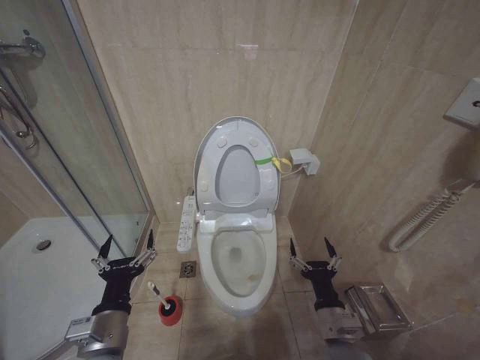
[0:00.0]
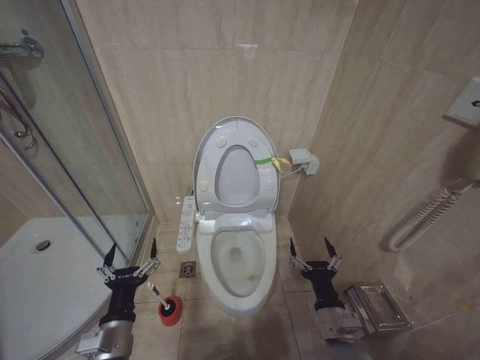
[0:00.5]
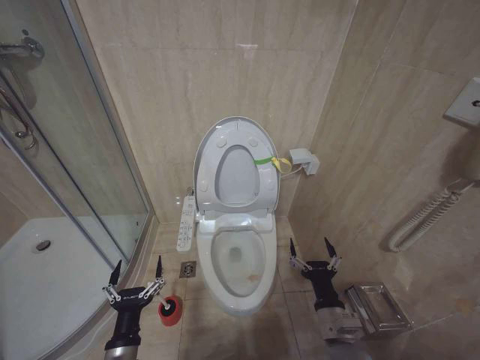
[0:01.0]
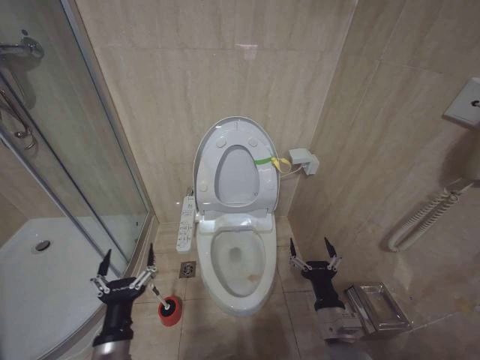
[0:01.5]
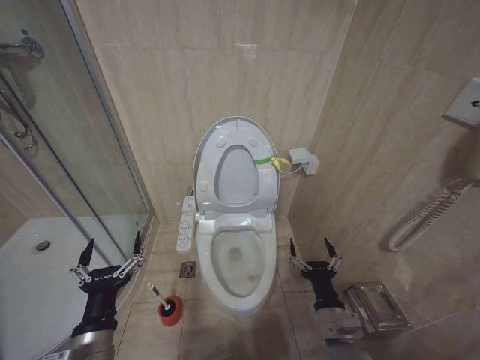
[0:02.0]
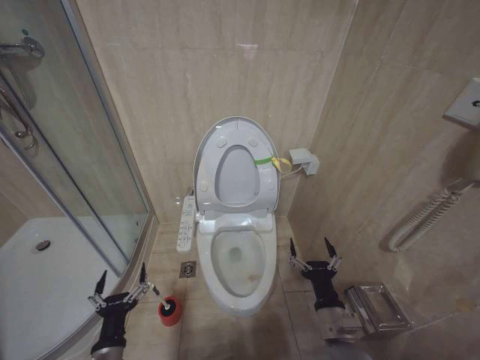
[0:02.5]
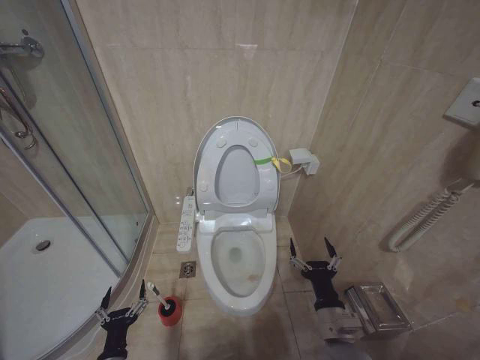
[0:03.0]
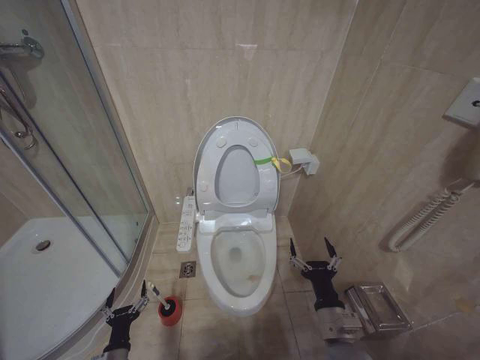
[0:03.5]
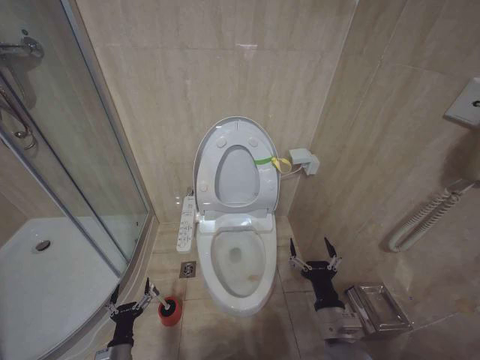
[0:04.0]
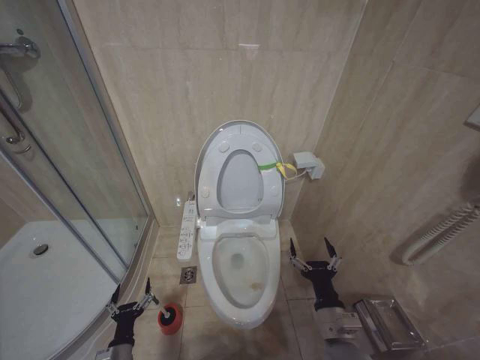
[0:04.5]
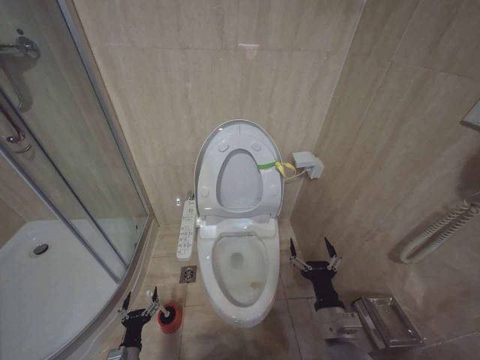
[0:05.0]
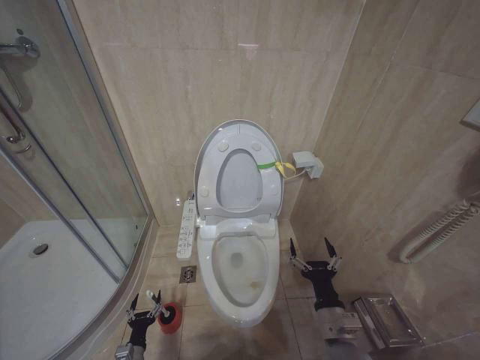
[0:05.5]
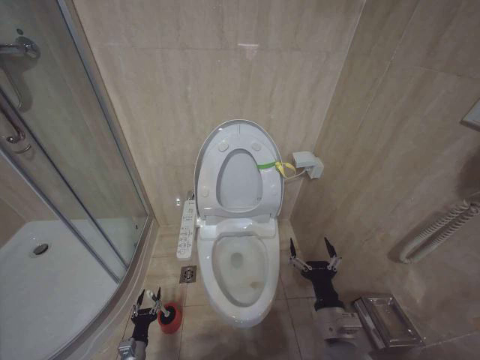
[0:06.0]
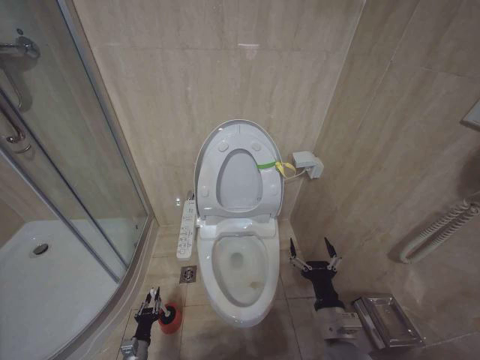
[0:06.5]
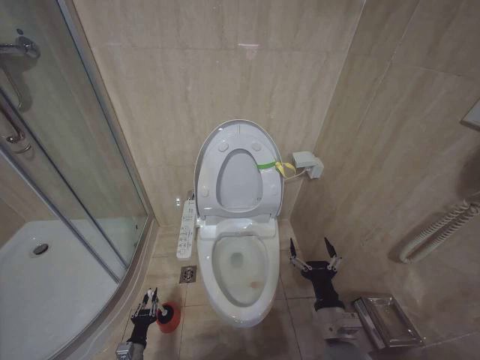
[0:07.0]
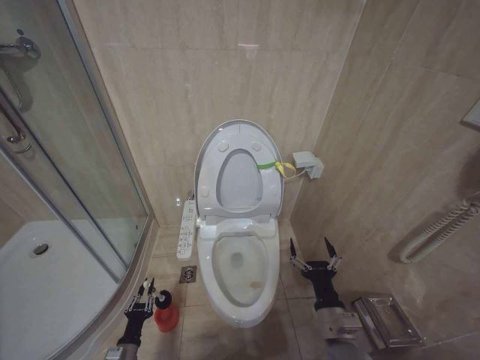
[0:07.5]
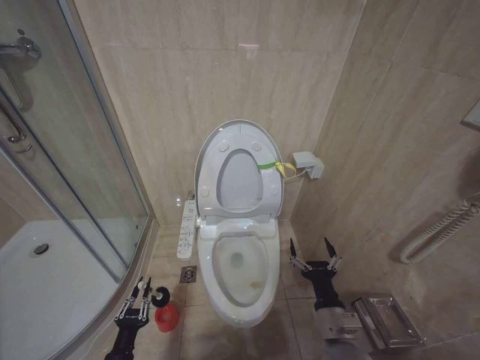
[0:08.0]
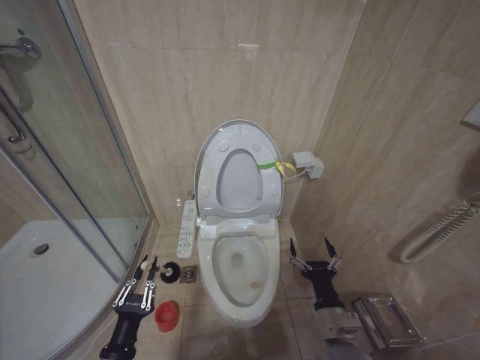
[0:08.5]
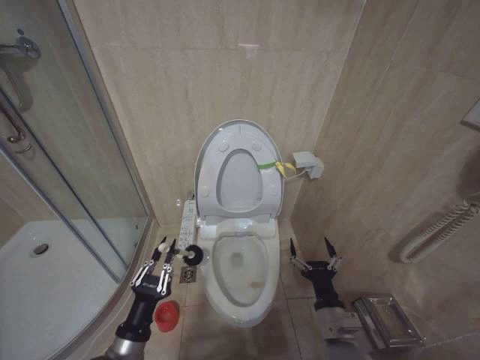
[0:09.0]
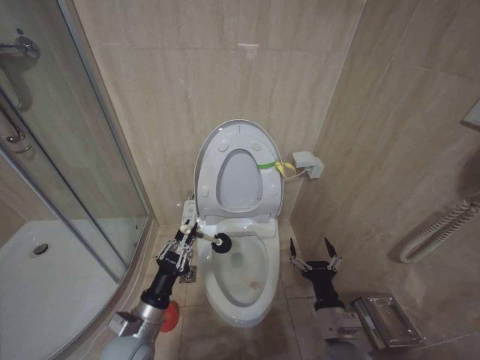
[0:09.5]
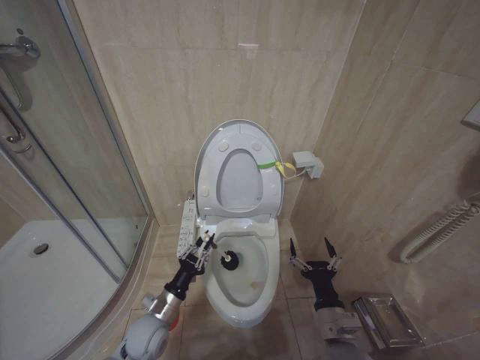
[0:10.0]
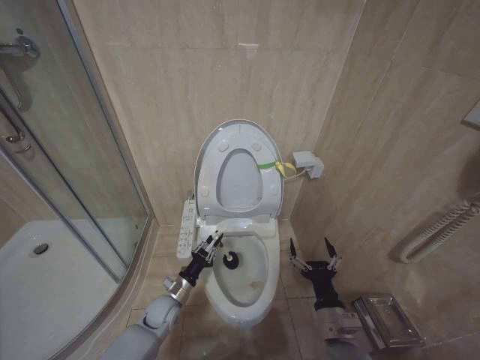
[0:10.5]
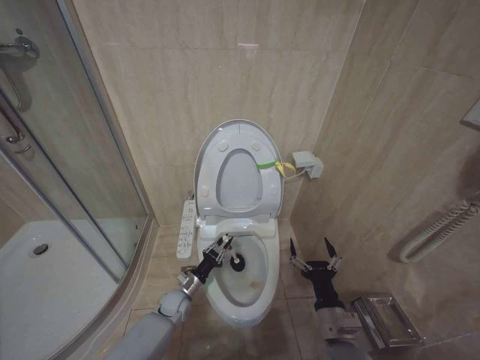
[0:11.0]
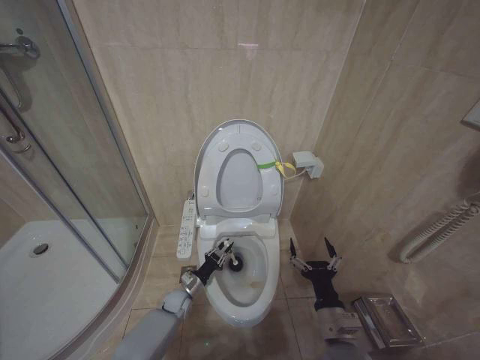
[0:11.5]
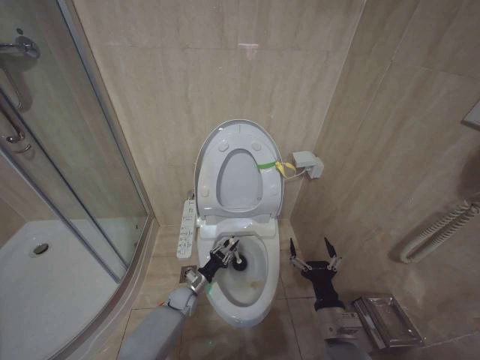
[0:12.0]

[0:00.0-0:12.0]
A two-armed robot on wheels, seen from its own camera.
Task of the whole recording: Open the toilet lid, clean the toilet bowl with a toilet brush, close the toilet lid, and flush.
0.0 to 2.0 s: The left gripper moves about 10 cm downward and comes back.
2.0 to 4.0 s: The left gripper moves downward, about 25 cm.
4.0 to 6.0 s: The left gripper goes approximately 10 cm downward.
6.0 to 8.0 s: The left gripper is displaced upward and backward by about 15 cm, and closes its fingers.
8.0 to 10.0 s: The left gripper shifts roughly 15 cm forward, upward and to the right.
10.0 to 12.0 s: The left gripper goes approximately 20 cm downward and forward.

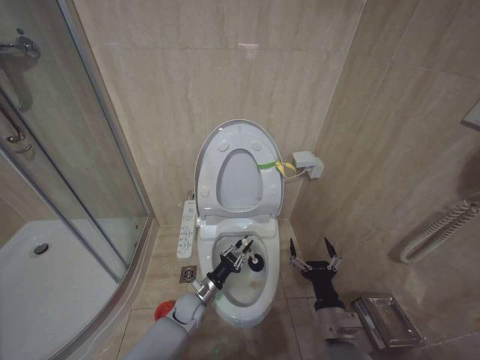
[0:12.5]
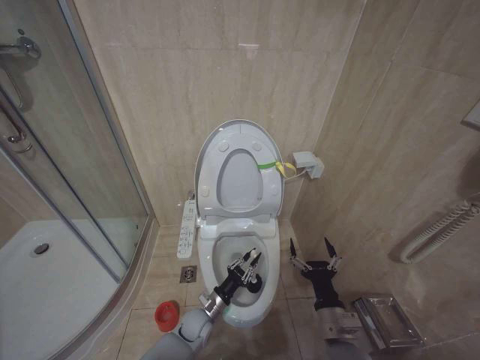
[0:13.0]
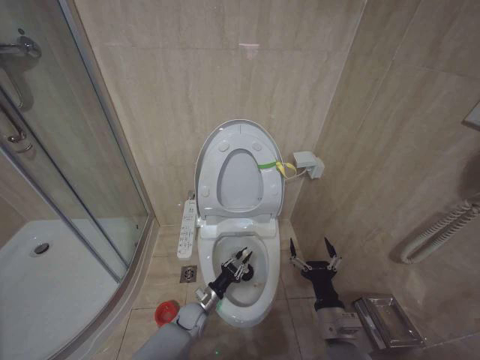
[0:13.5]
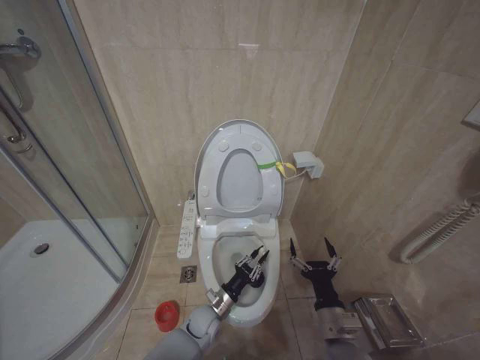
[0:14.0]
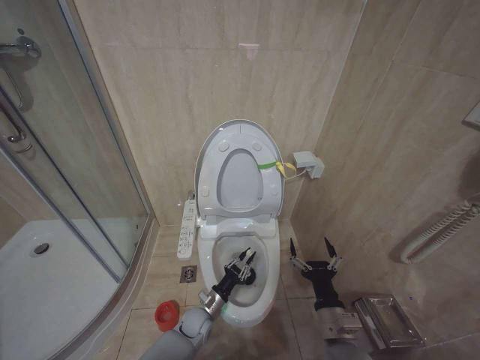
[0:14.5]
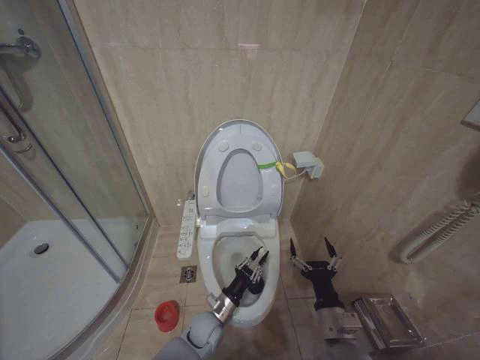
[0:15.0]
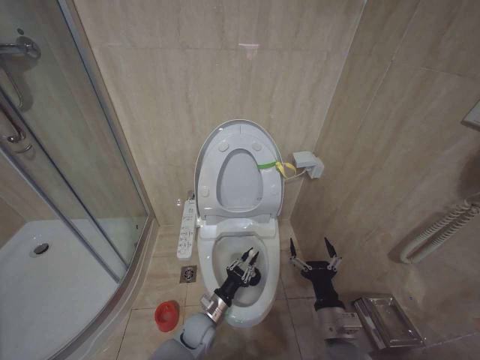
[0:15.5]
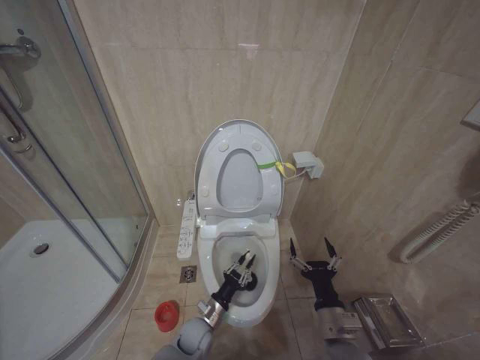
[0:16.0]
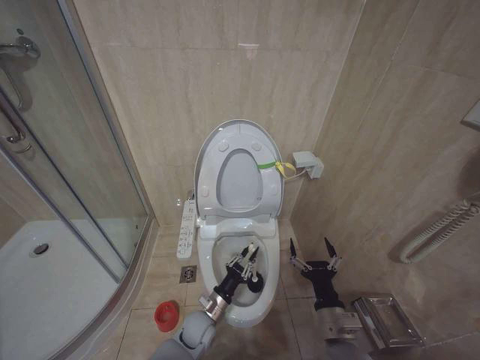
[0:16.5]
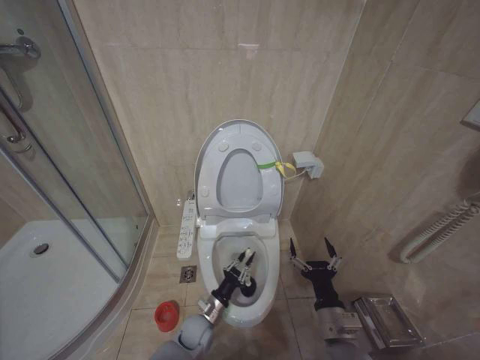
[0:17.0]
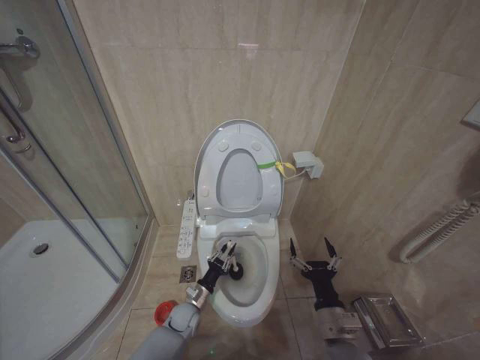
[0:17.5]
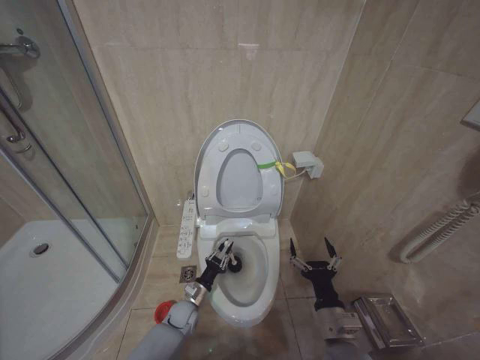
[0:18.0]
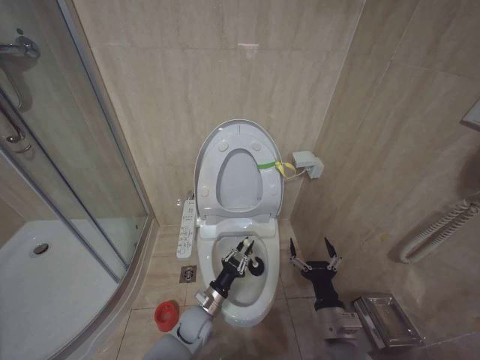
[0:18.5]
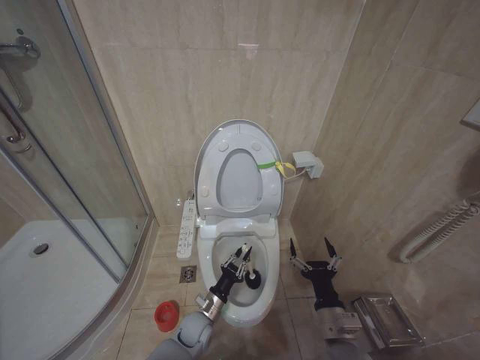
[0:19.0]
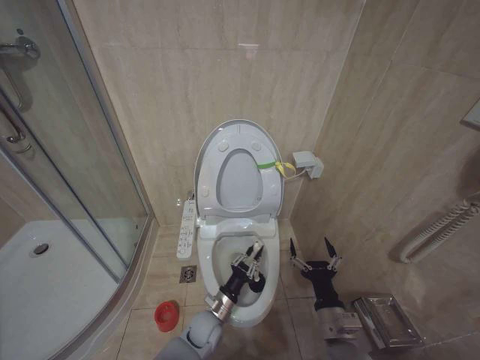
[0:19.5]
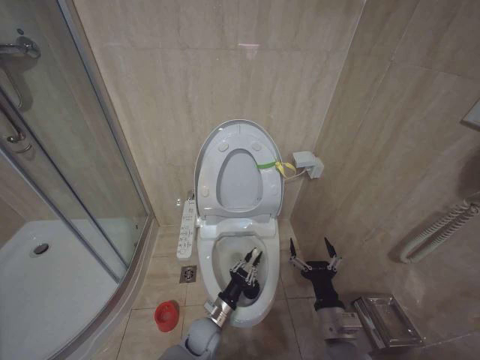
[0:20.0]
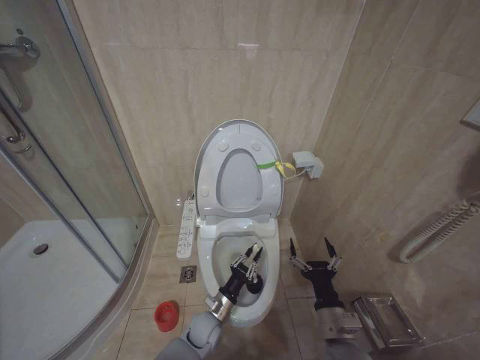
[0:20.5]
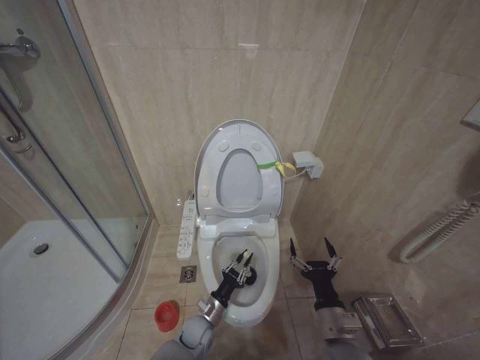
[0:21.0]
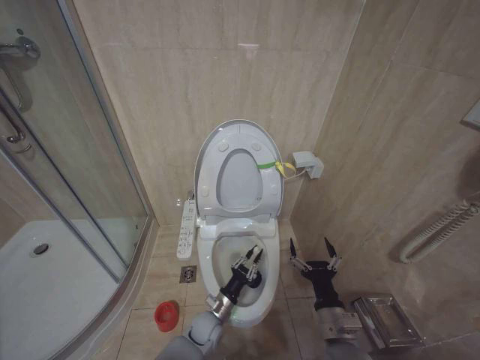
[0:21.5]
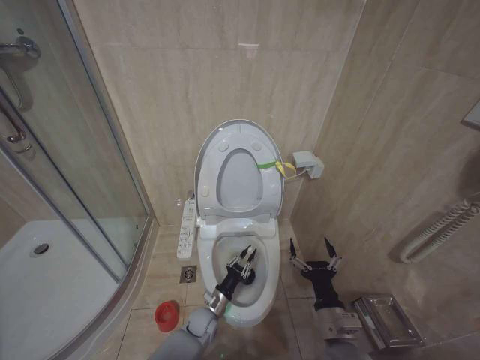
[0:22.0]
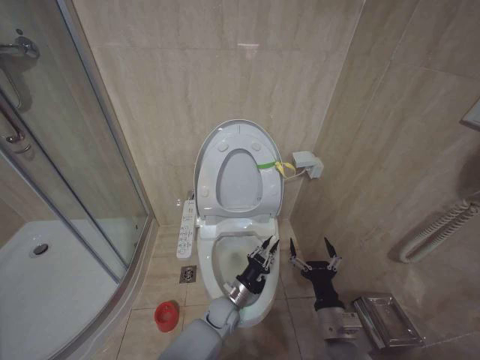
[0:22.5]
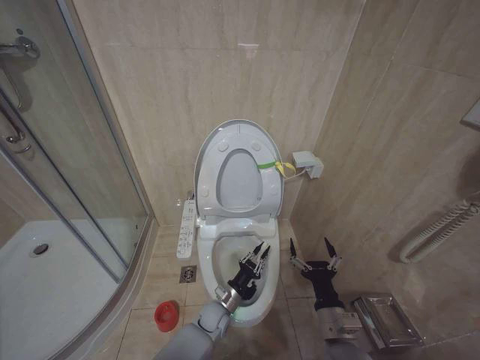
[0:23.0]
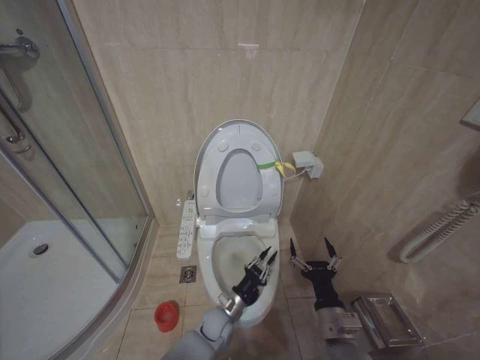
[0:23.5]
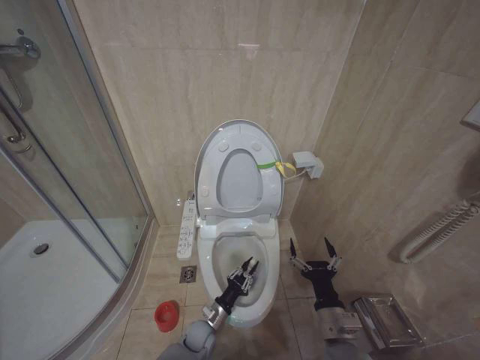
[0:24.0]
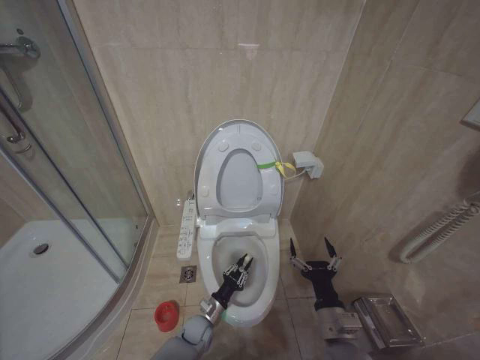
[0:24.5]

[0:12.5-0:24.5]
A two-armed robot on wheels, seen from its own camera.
Task of the whole recording: Open the toilet lid, clean the toilet bowl with a toilet brush, close the toilet lid, and flush.
12.5 to 14.5 s: The left gripper ends up about 5 cm from where it was.
18.5 to 20.5 s: There are only small adjustments of the grippers.
20.5 to 22.5 s: The left gripper heads to the right, covering about 5 cm.
22.5 to 24.5 s: The left gripper moves to the left and downward, about 10 cm.

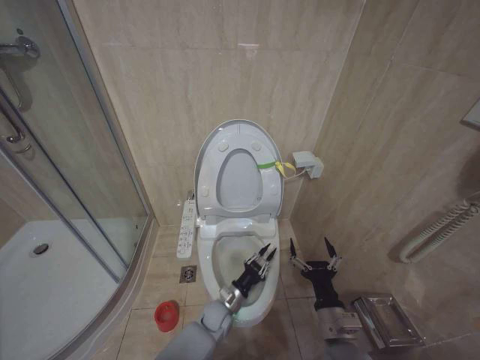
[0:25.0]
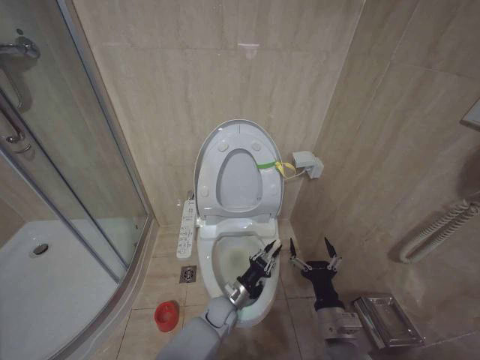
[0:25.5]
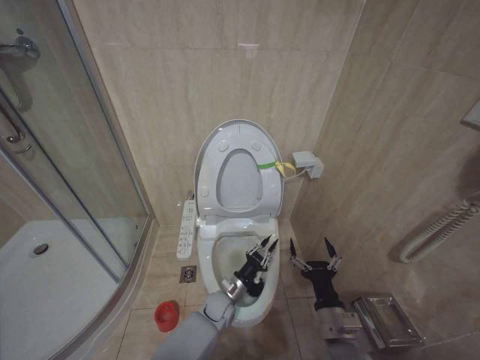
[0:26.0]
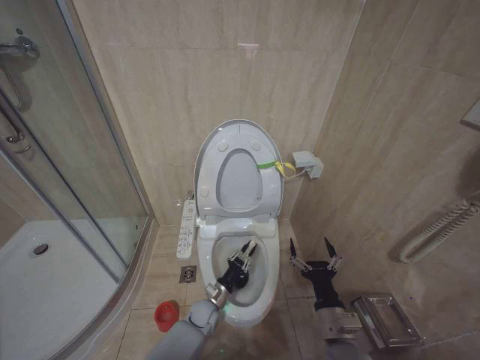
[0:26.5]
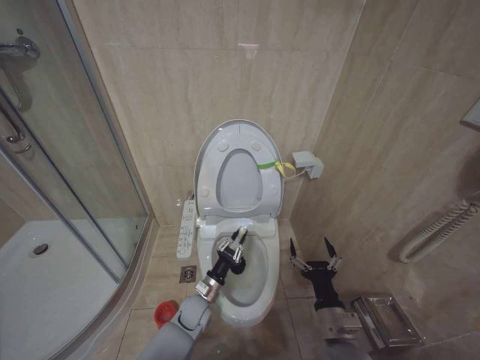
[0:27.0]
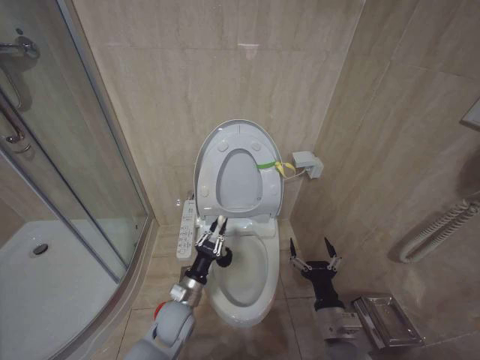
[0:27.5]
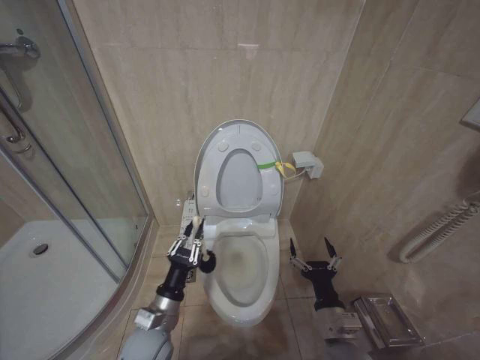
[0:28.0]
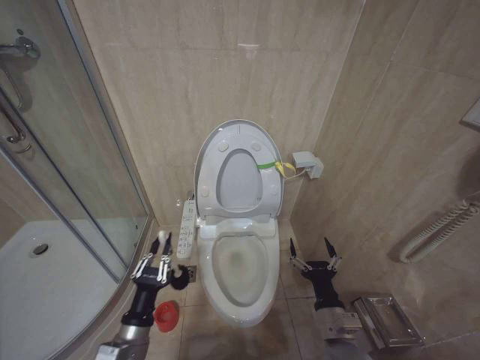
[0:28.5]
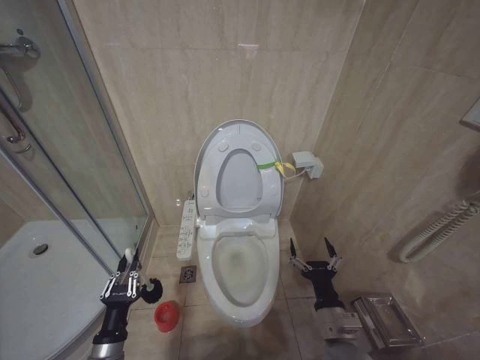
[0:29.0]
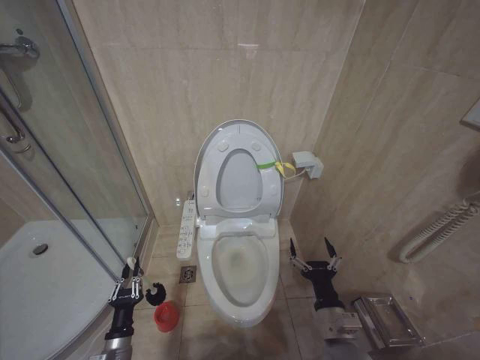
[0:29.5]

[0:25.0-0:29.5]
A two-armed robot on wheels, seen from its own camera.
Task of the whole recording: Open the toilet lid, clean the toilet bowl with a toilet brush, close the toilet lid, and flush.
25.0 to 27.0 s: The left gripper moves about 5 cm.
27.0 to 29.5 s: The left gripper travels to the left and backward by roughly 25 cm.
